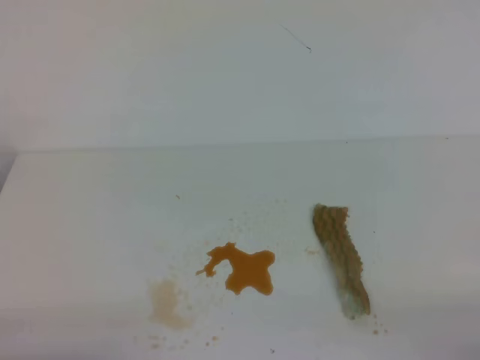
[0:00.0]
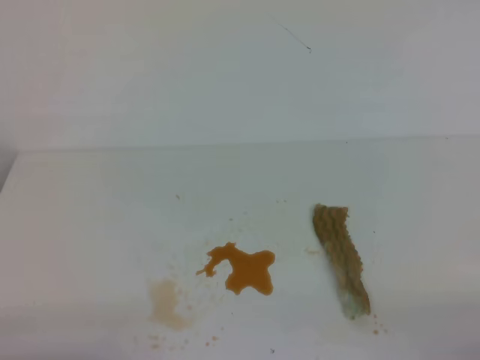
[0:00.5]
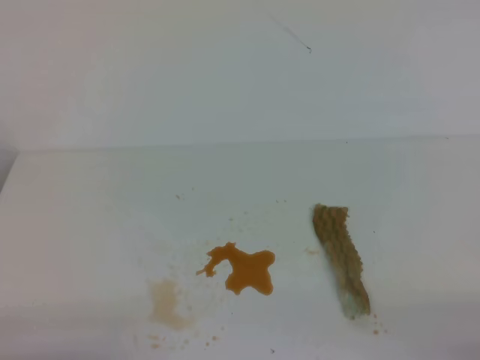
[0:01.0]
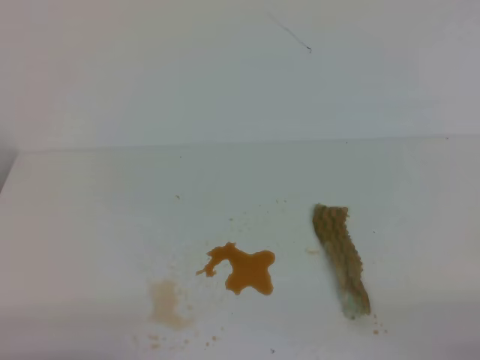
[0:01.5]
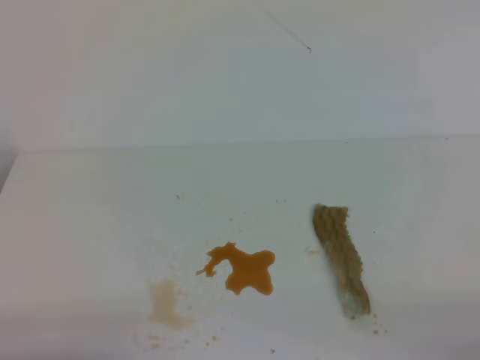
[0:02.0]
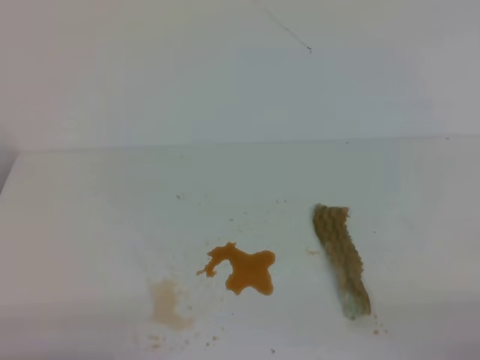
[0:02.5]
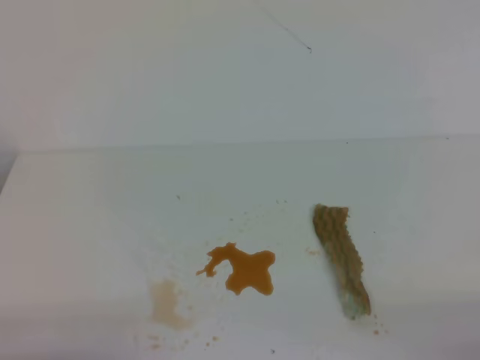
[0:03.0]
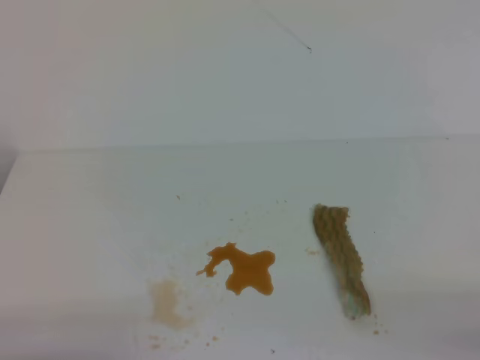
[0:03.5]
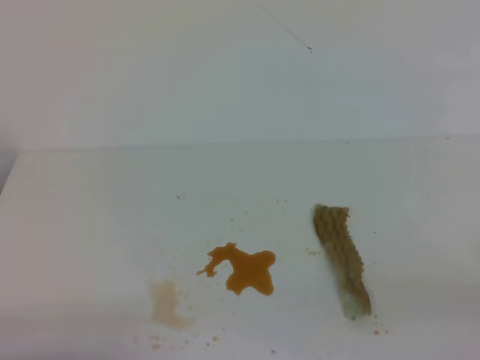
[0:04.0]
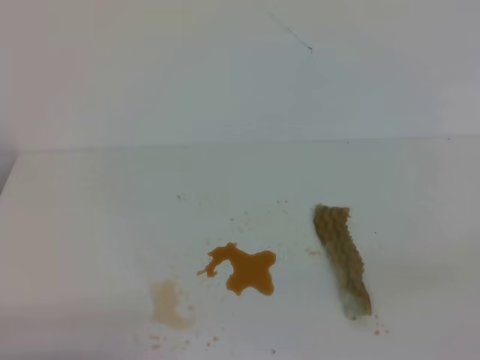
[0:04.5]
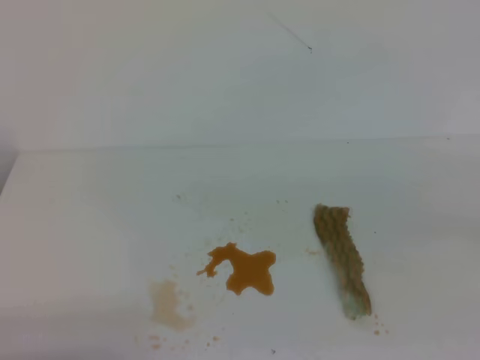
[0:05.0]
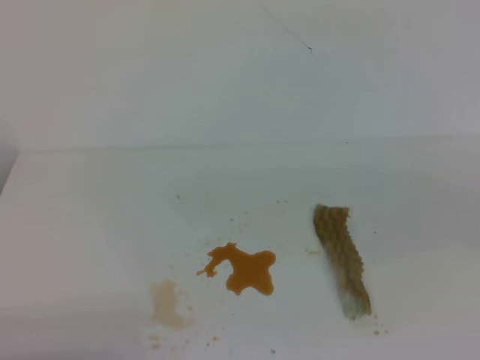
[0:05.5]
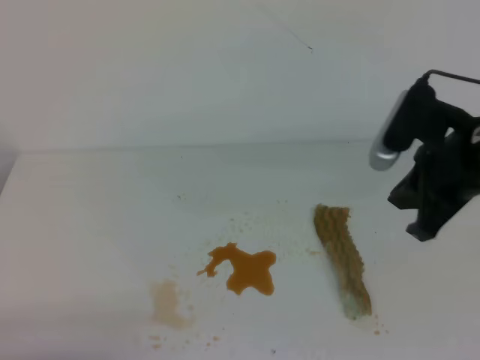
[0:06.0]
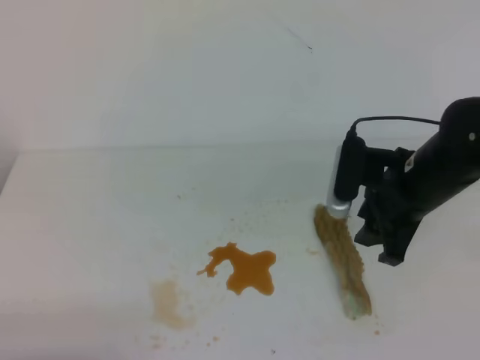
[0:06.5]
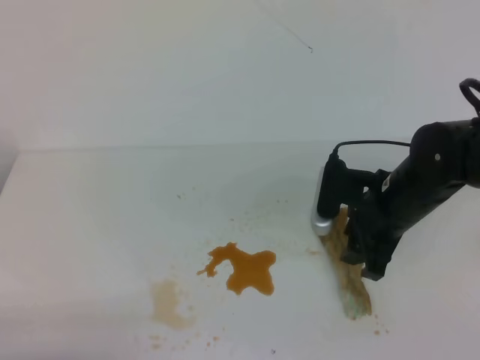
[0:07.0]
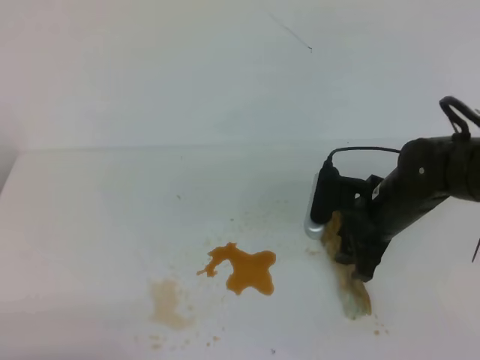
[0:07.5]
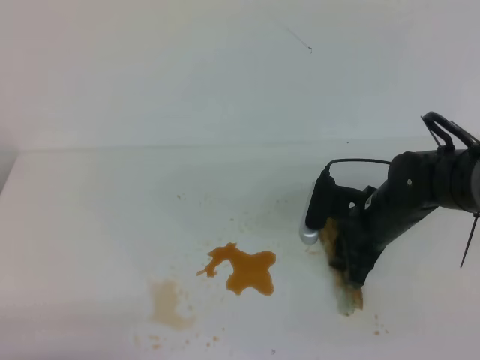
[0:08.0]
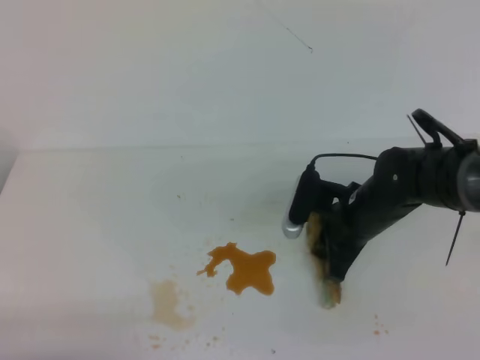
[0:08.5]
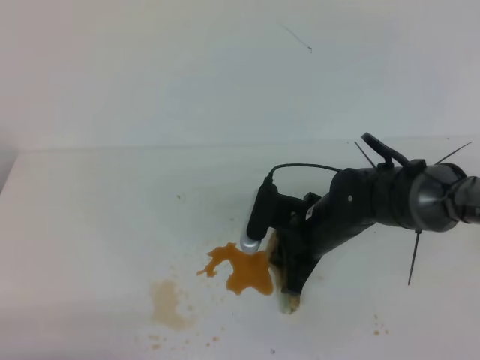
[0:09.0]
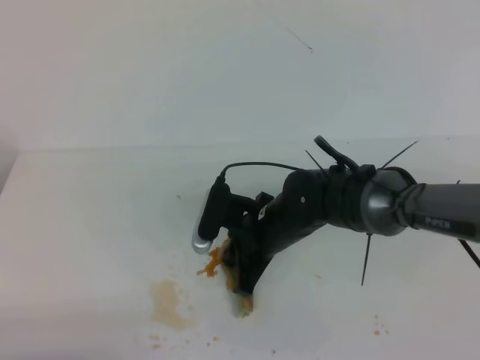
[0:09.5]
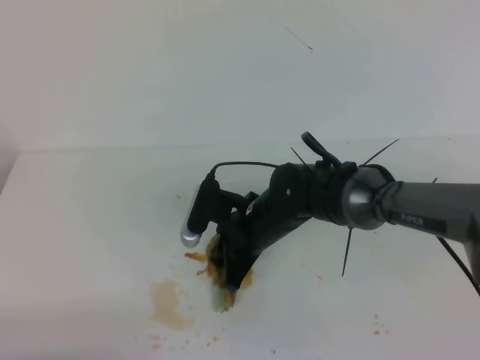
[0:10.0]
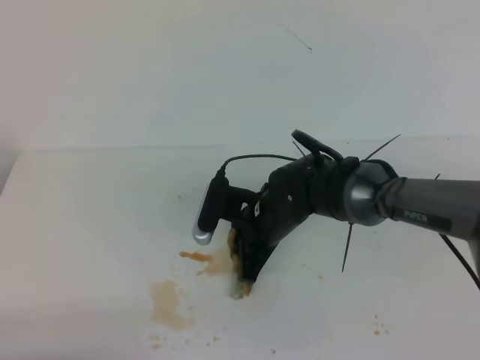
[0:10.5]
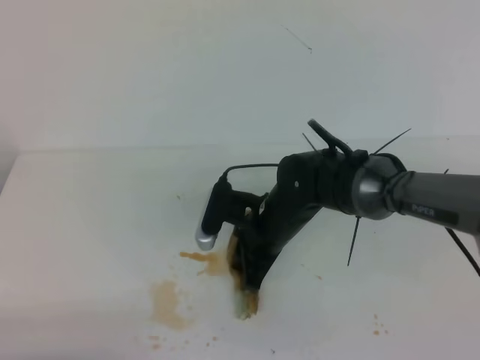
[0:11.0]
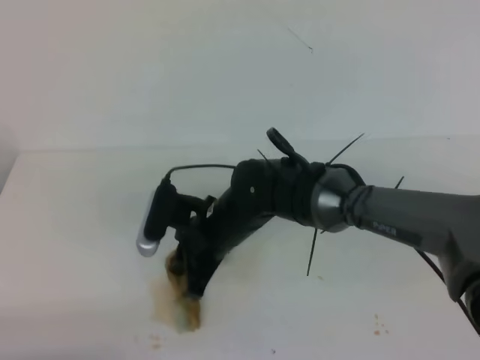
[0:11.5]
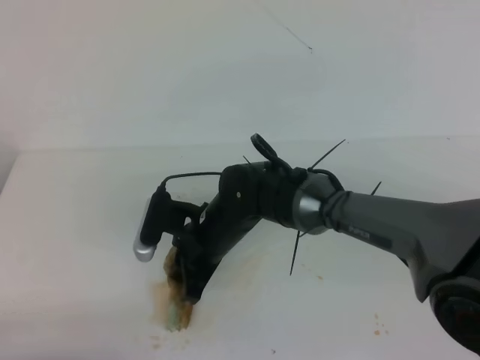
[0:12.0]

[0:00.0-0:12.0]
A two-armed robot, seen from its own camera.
0:00.0 to 0:02.0: Both grippers stay about where they are.
0:04.0 to 0:06.0: The right gripper heads forward and to the left, covering about 25 cm.
0:06.0 to 0:08.0: The right gripper shifts roughly 20 cm downward, forward and to the left, and opens its fingers.
0:08.0 to 0:10.0: The right gripper moves to the left, some 15 cm, and closes.
0:10.0 to 0:12.0: The right gripper travels to the left by roughly 5 cm.

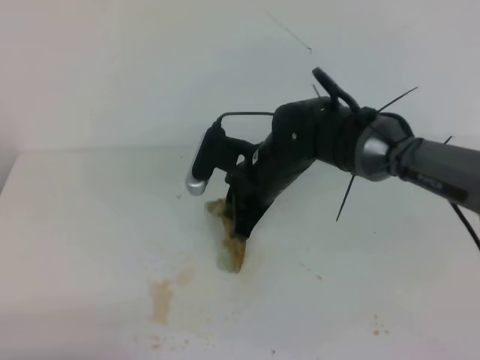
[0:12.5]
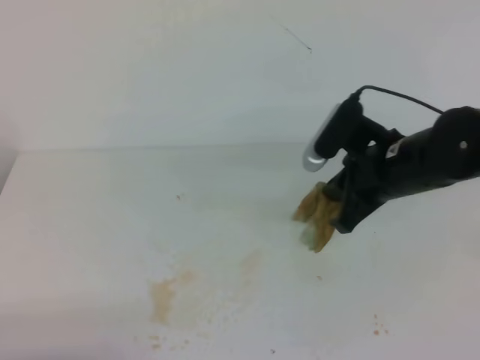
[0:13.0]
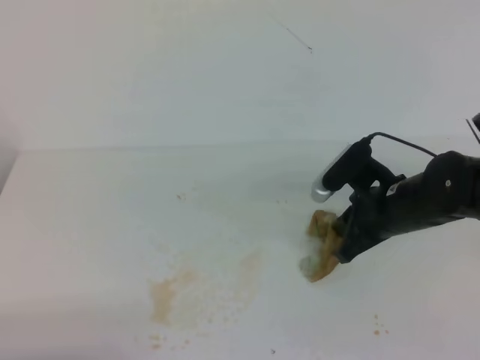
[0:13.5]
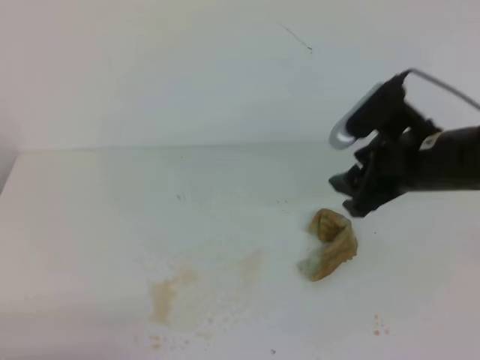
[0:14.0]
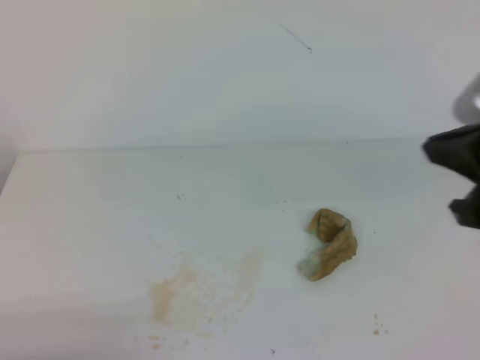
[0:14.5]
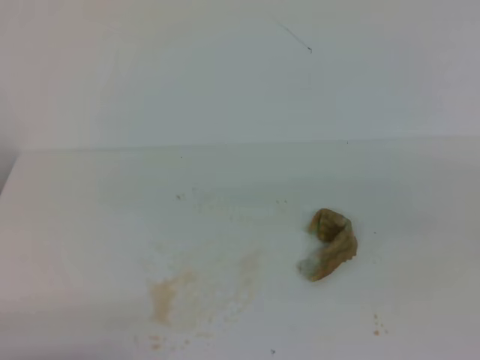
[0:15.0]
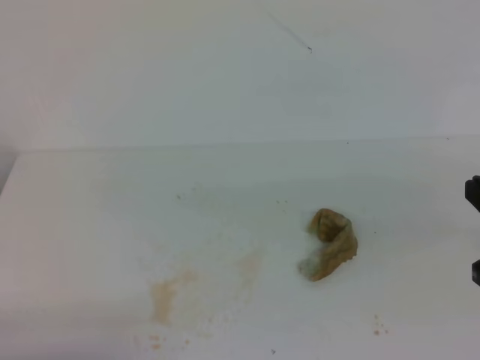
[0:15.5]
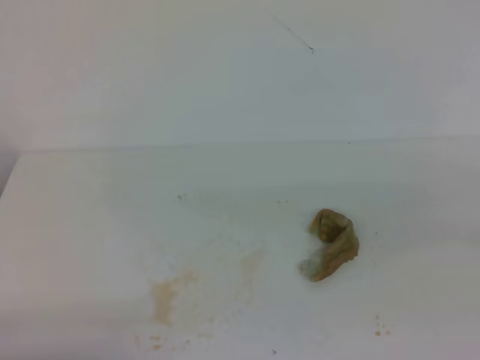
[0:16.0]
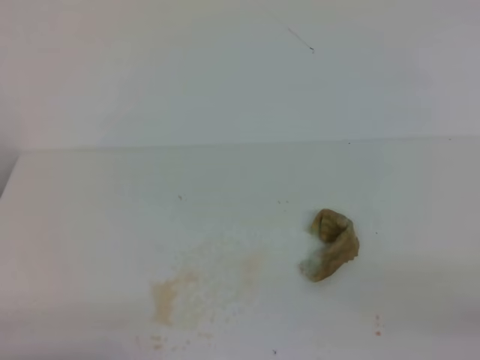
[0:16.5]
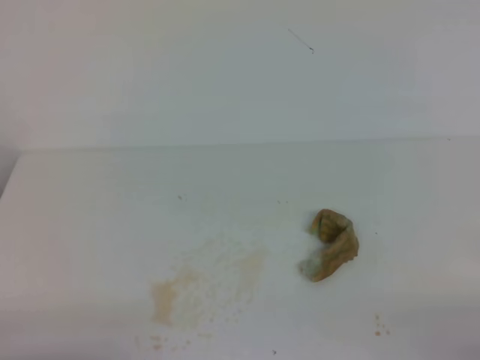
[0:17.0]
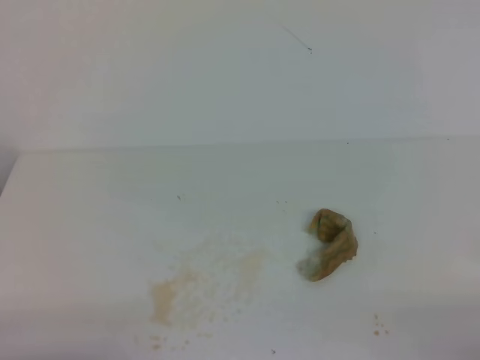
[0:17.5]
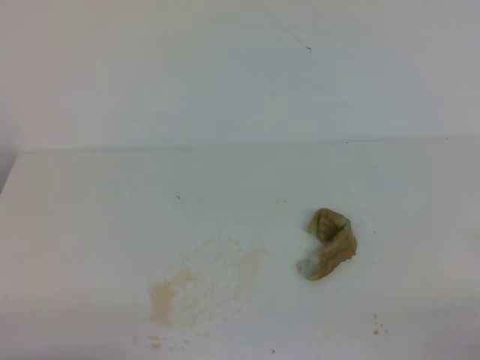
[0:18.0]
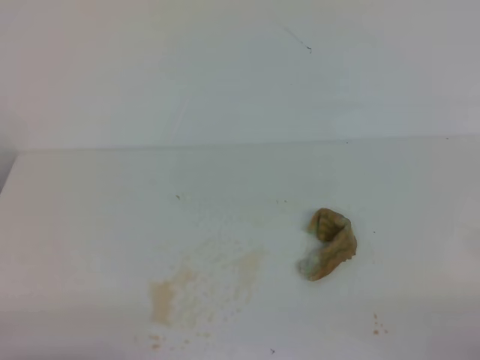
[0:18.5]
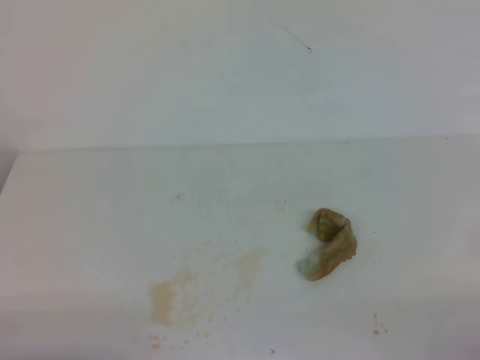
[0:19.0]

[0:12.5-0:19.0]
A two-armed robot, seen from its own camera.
0:12.5 to 0:14.5: The right gripper shifts about 30 cm to the right, upward and backward, and opens, then closes again.
0:14.5 to 0:17.0: The right gripper heads downward, backward and to the right, covering roughly 25 cm.
0:17.0 to 0:19.0: Neither gripper changes place.
